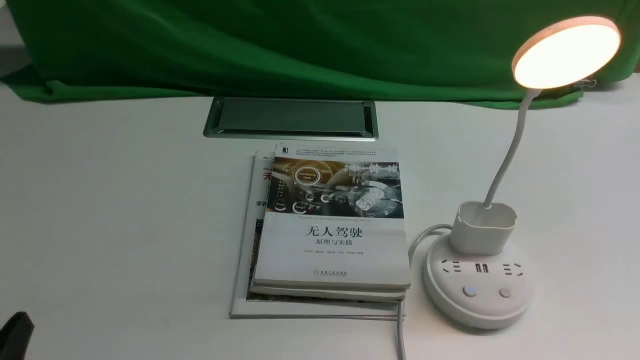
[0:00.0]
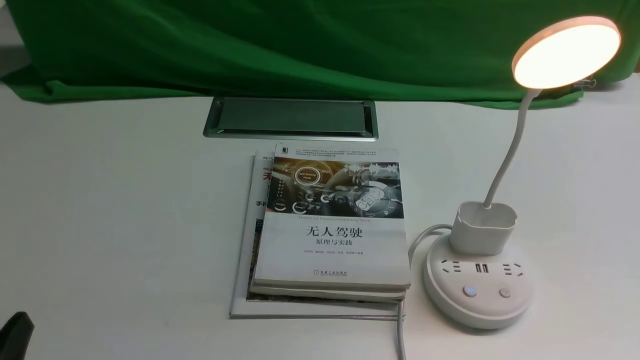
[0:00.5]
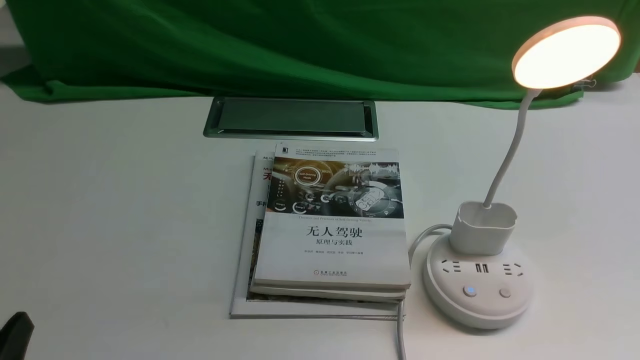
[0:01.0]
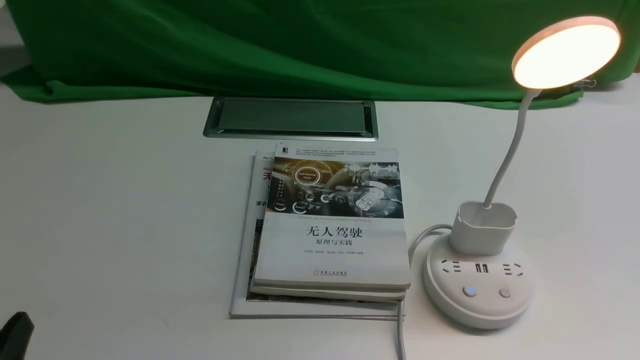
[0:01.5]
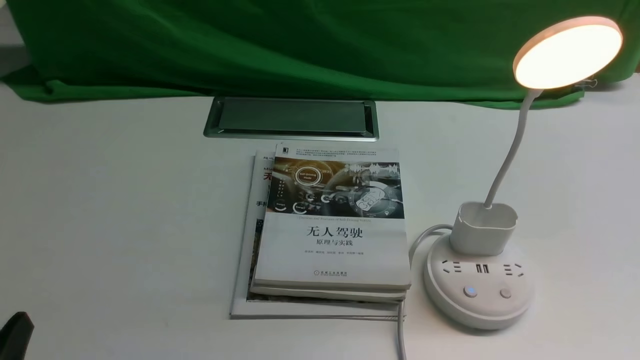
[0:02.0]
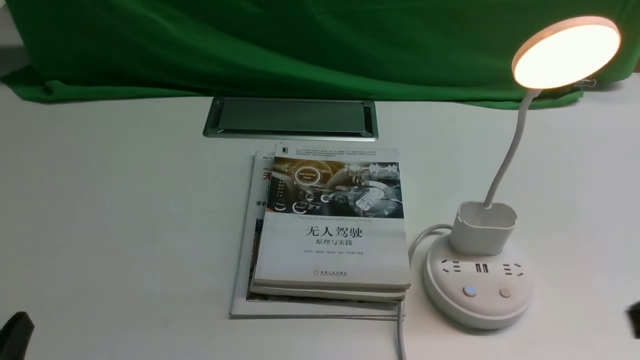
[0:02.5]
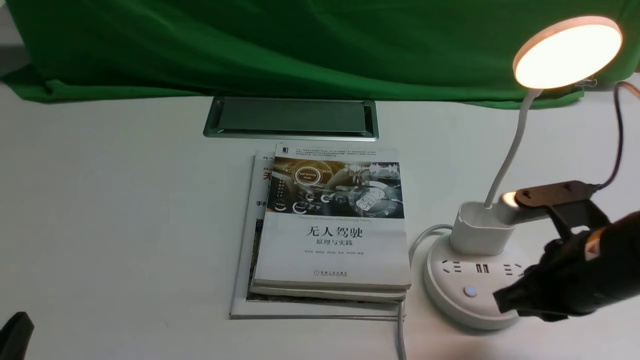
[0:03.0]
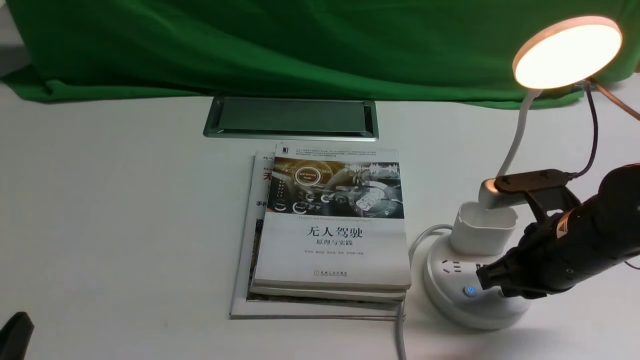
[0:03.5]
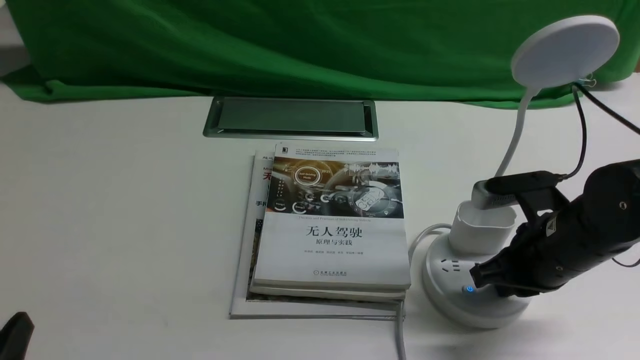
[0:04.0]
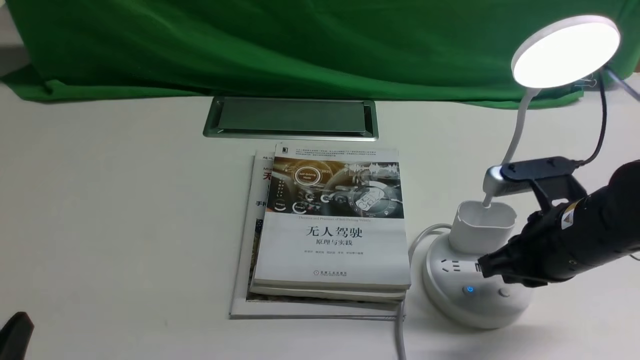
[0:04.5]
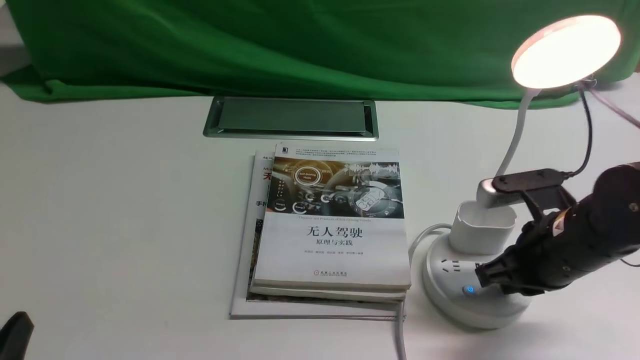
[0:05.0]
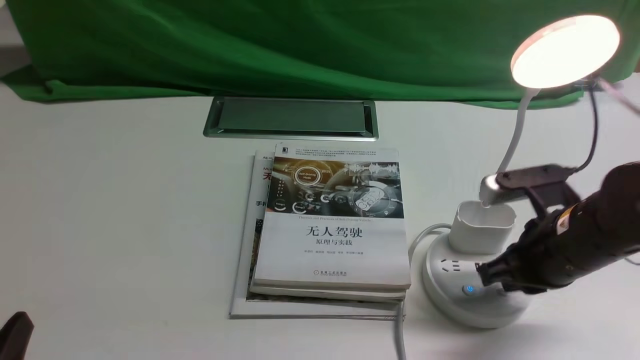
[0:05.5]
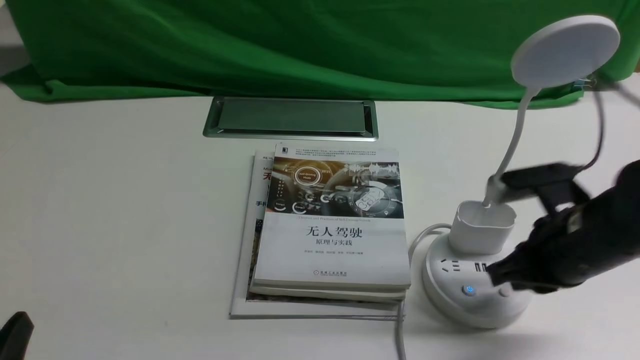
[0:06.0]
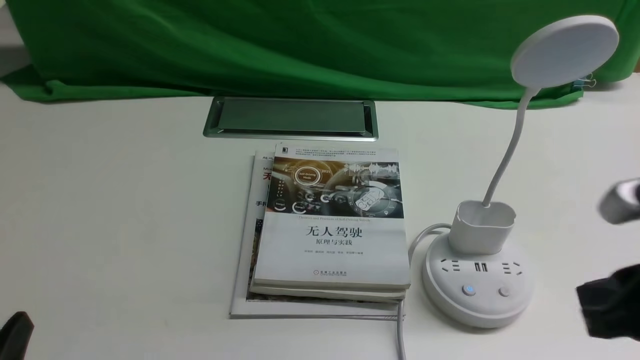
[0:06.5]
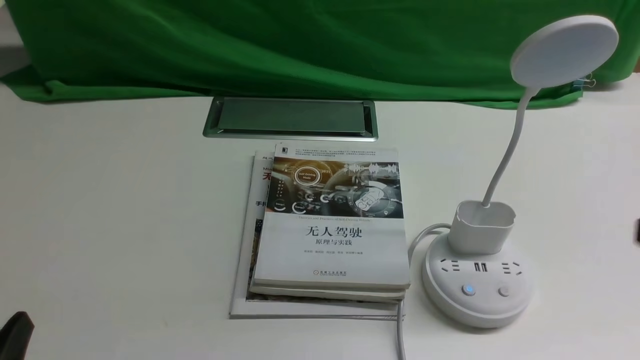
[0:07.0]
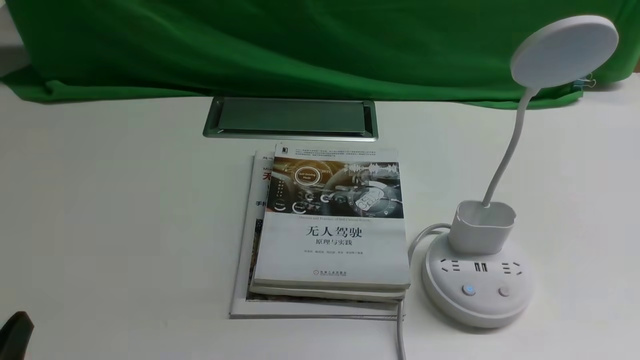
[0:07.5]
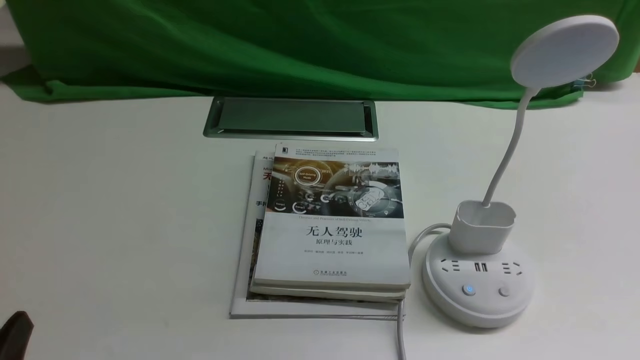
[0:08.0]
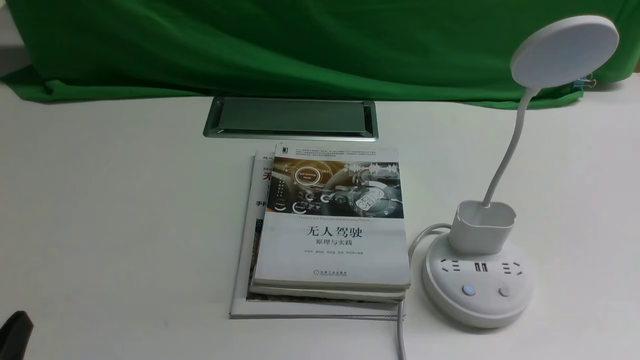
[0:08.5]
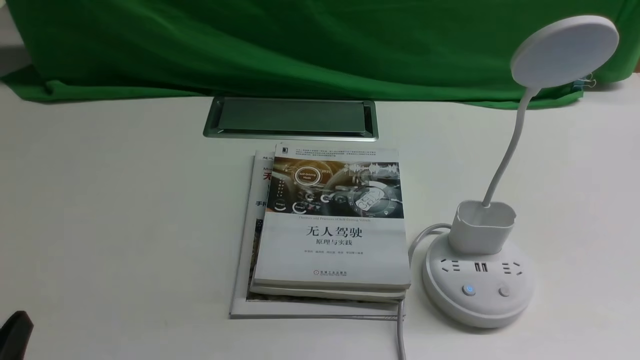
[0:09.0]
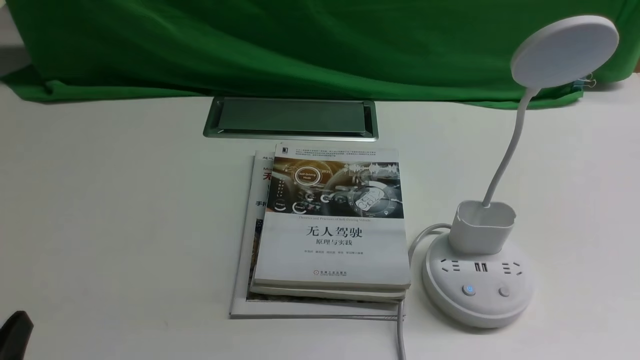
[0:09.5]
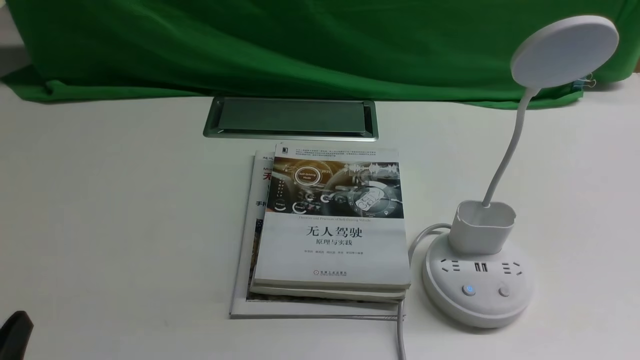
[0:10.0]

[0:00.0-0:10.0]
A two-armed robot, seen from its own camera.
Task of the whole recording: turn off the desk lamp on the white desktop by hand.
Step, 0:00.0 to 0:06.0: use the right arm to press the button switch on the lamp holder.
0:02.0 to 0:04.0: The right gripper is displaced forward and to the left by about 20 cm, and closes its fingers.
0:04.0 to 0:06.0: The grippers stay close to where they were, moving slightly.
0:06.0 to 0:08.0: The right gripper is displaced backward and to the right by approximately 20 cm.
0:08.0 to 0:10.0: Neither gripper changes place.

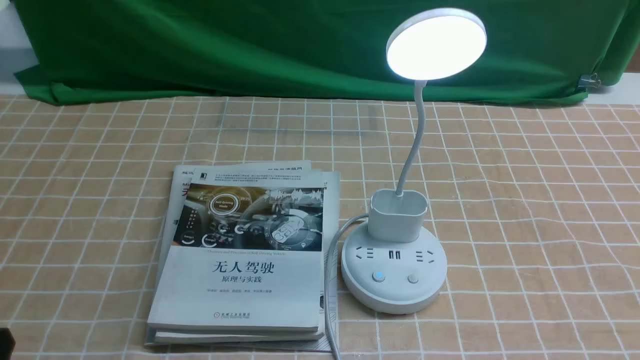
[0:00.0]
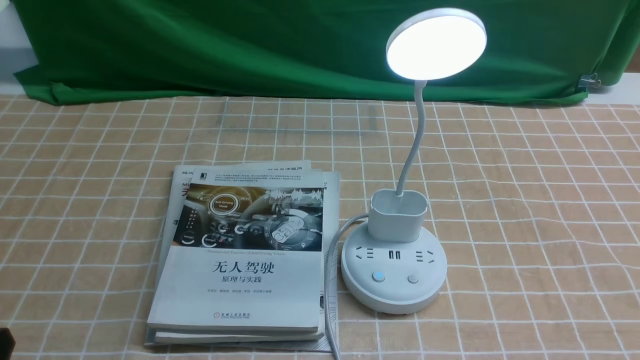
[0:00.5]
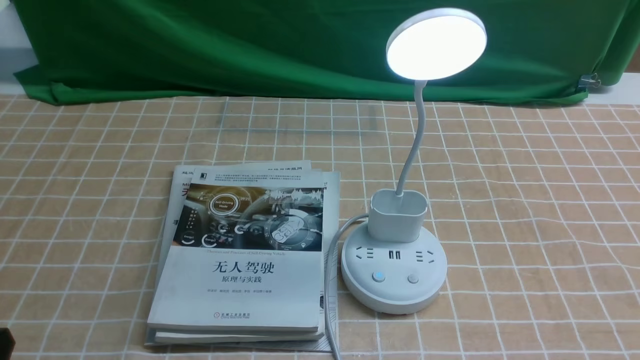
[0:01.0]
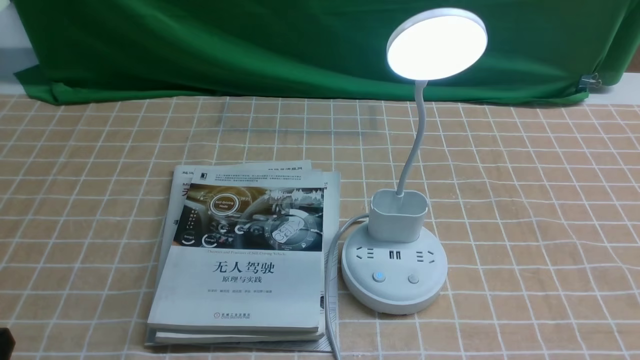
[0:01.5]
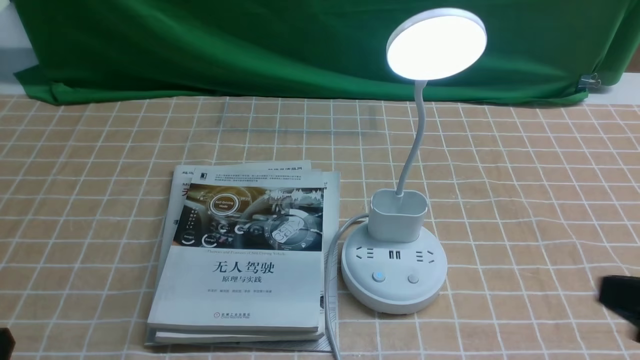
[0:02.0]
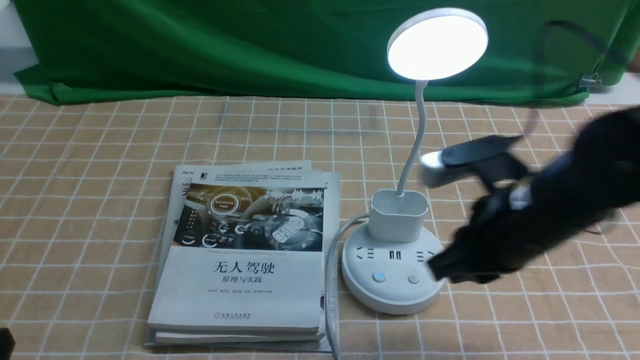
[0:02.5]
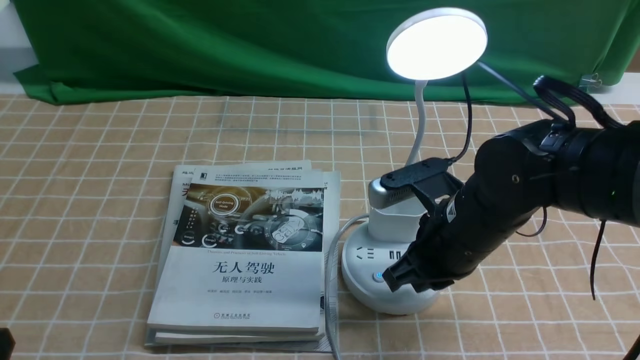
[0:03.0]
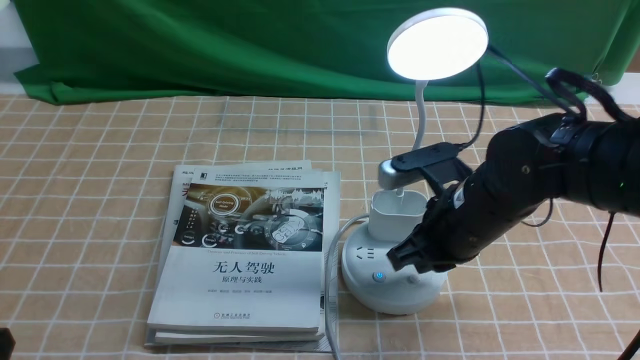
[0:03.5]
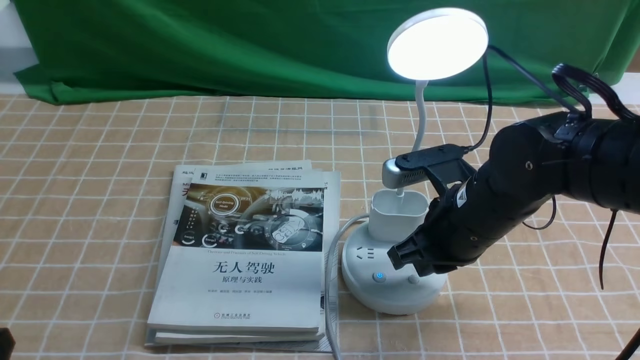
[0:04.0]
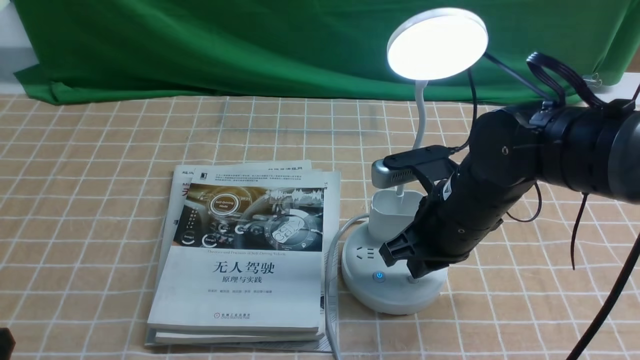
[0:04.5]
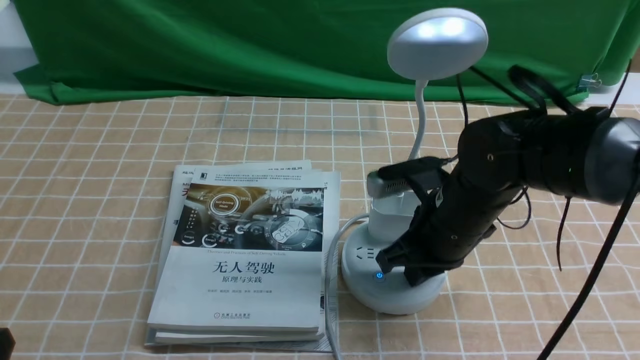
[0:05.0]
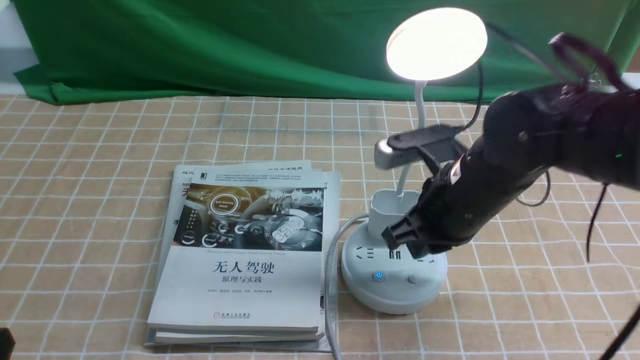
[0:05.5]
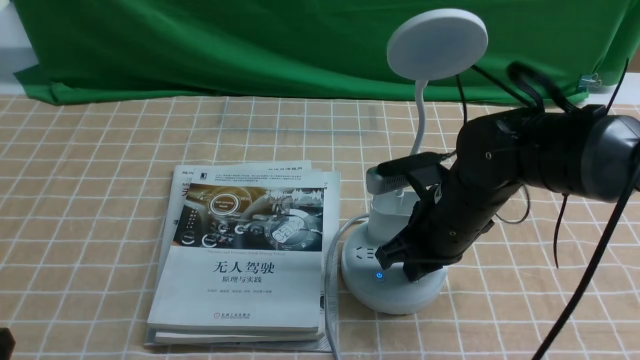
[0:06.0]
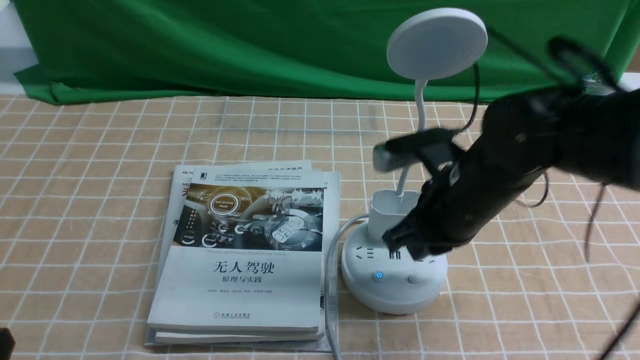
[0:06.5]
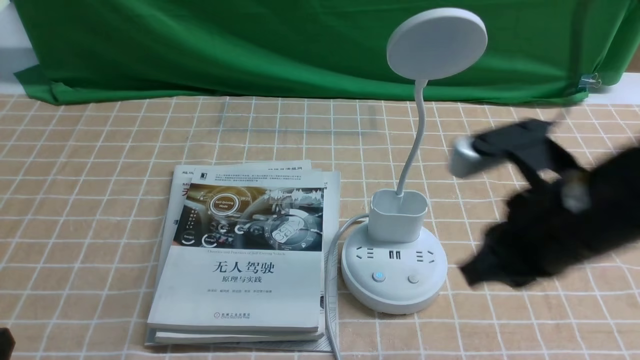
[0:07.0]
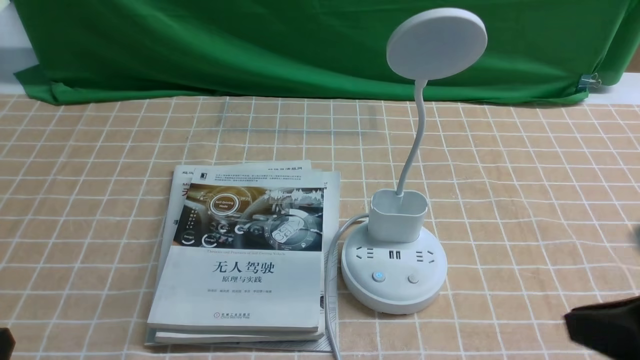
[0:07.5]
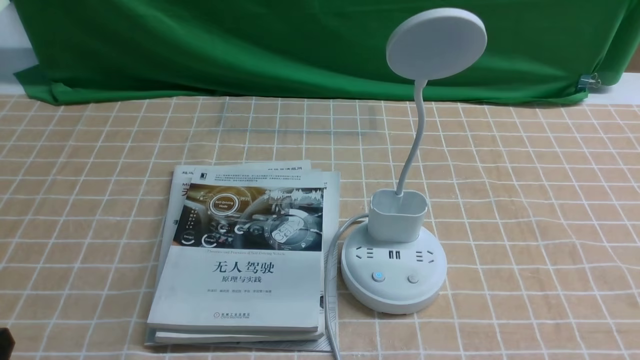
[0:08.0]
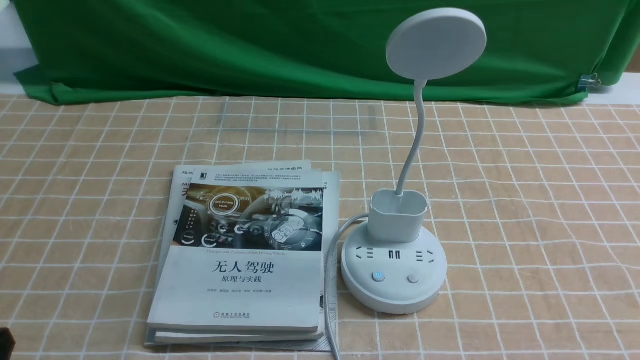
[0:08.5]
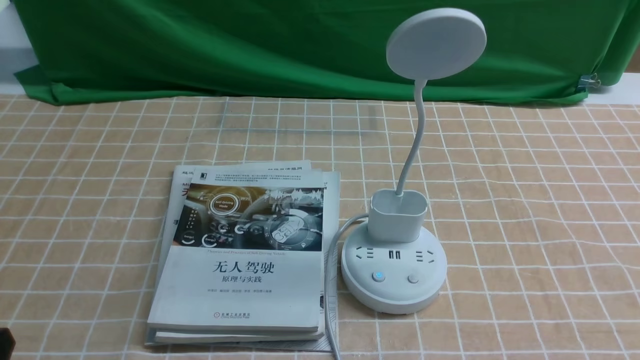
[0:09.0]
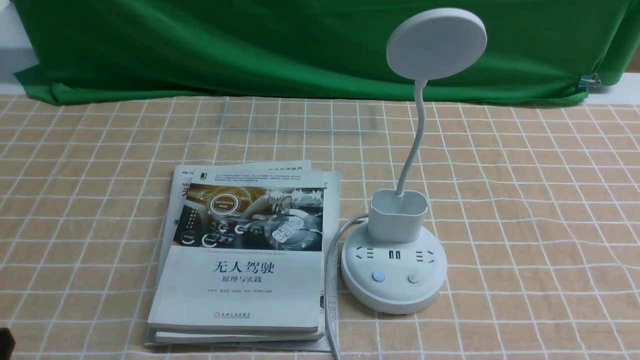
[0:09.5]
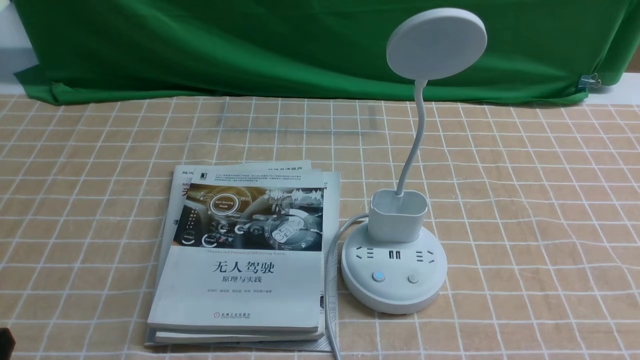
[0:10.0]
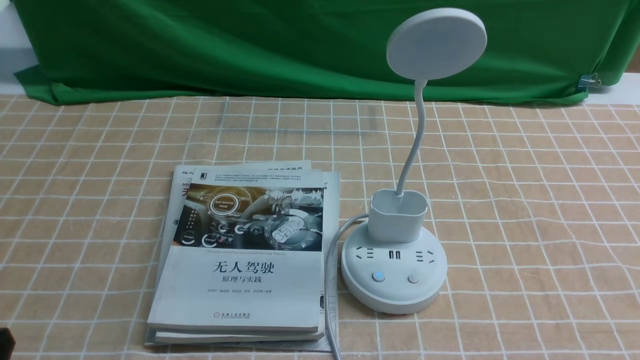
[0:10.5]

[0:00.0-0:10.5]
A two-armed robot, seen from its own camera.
Task of the whole recording: turn off the desk lamp on the light coffee tablecloth by hand.
Step, 0:00.0 to 0:06.0: use the right arm to press the button switch on the lamp holder.
0:02.0 to 0:04.0: The right gripper goes about 25 cm forward and to the left.
0:04.0 to 0:06.5: The grippers make only small movements.
0:06.5 to 0:08.5: The right gripper heads backward and to the right, covering roughly 30 cm.
